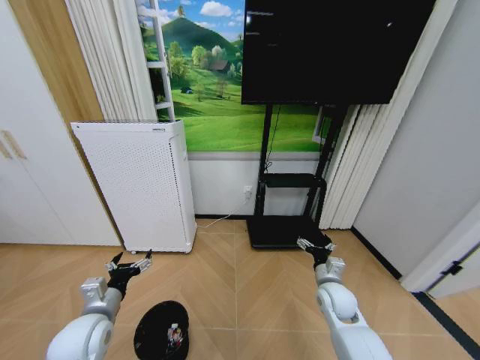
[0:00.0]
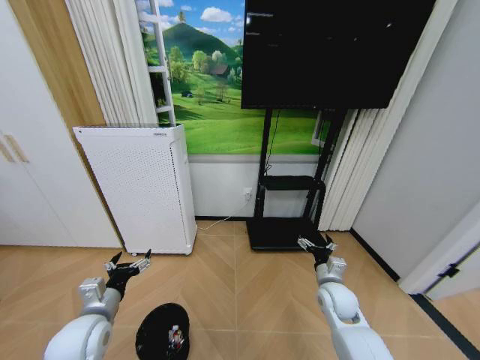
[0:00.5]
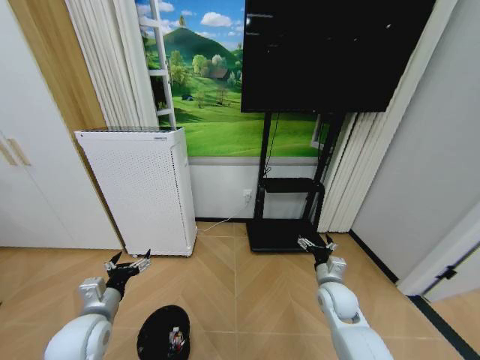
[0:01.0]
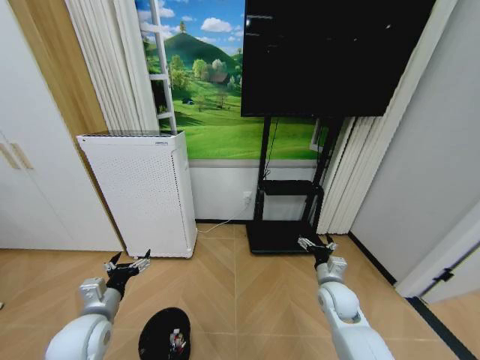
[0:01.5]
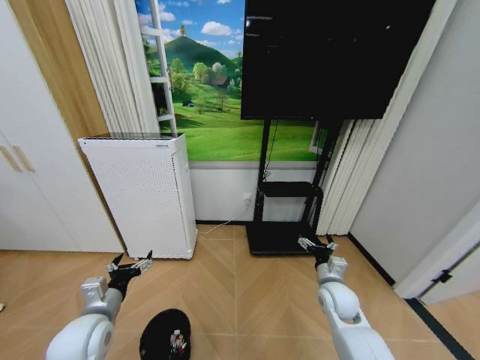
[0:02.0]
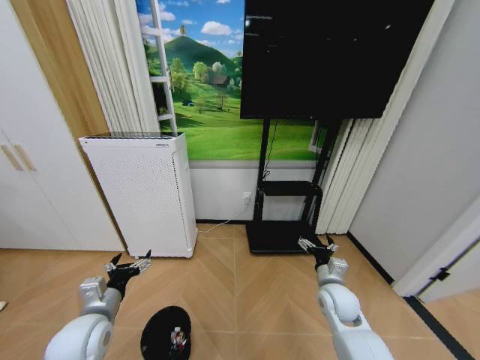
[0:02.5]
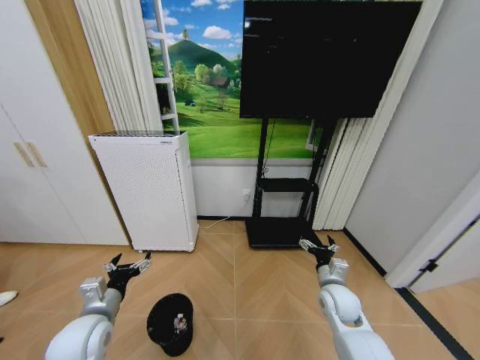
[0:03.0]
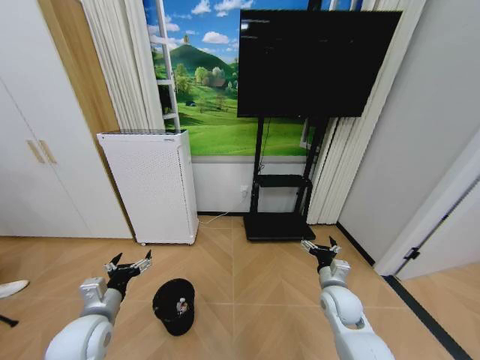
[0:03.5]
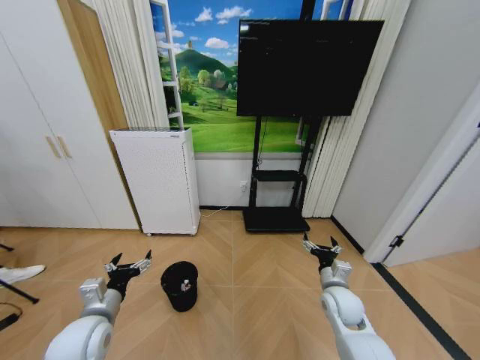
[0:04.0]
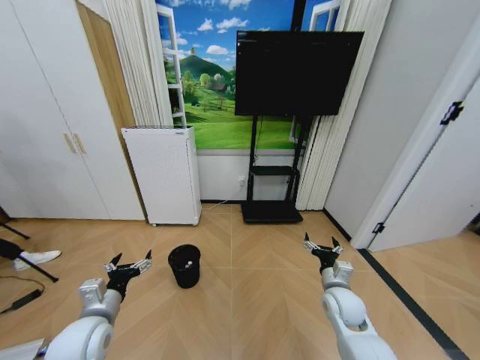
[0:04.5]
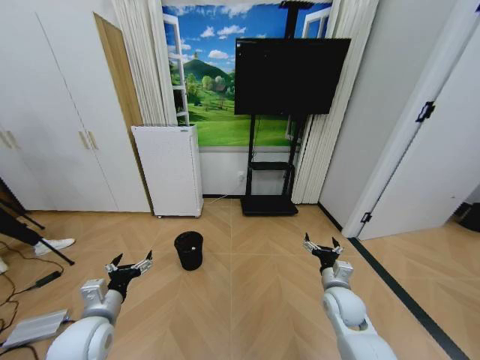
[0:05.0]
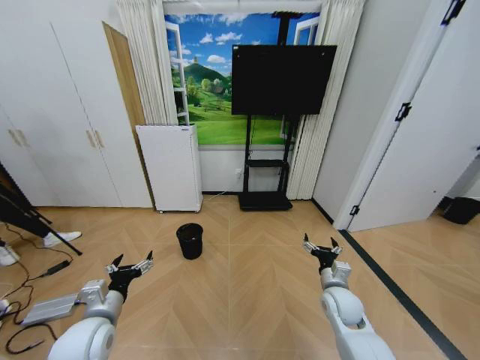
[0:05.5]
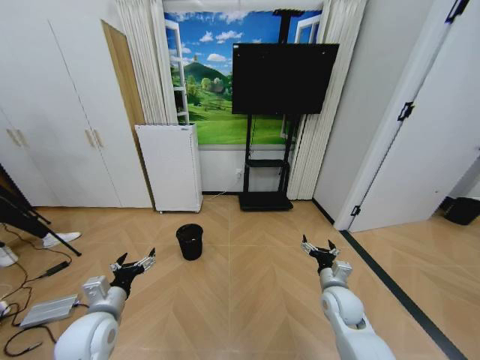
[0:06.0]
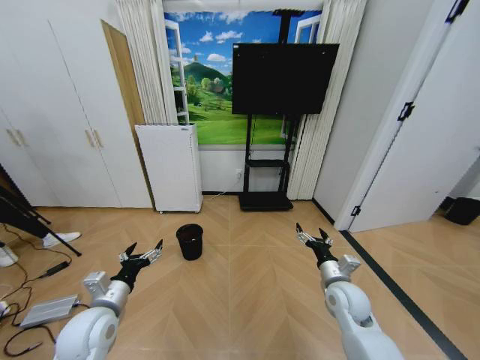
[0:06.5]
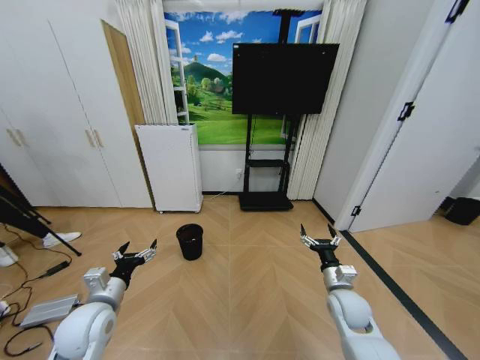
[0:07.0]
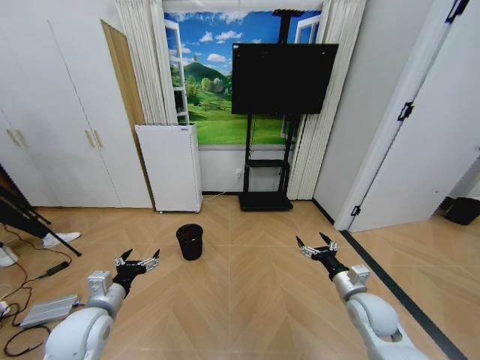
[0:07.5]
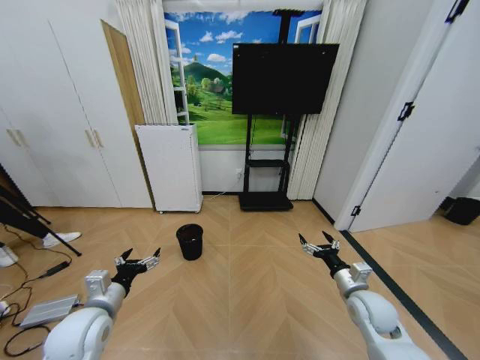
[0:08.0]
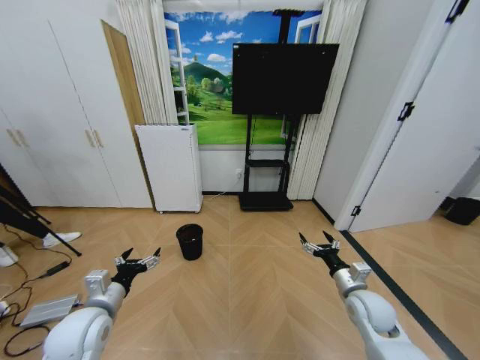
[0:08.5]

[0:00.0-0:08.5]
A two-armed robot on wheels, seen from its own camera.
Task of the whole recording: Pick up the trash bin and place the garbage on the floor into it.
0:00.0 to 0:02.0: Neither gripper changes place.
0:06.5 to 0:08.5: The right gripper changes place by roughly 5 cm.

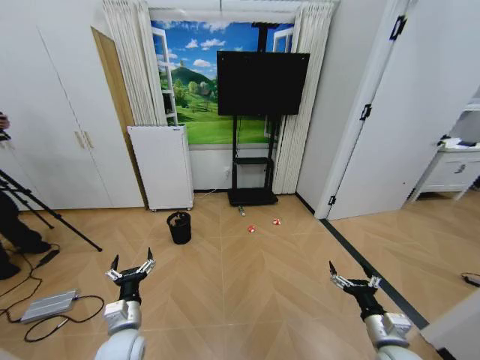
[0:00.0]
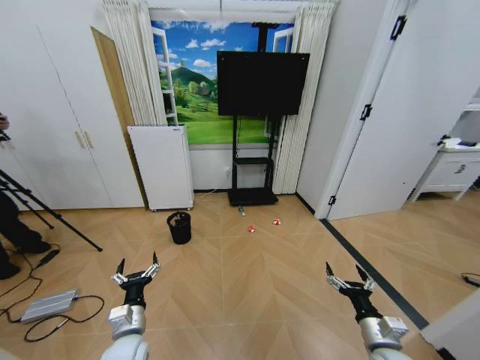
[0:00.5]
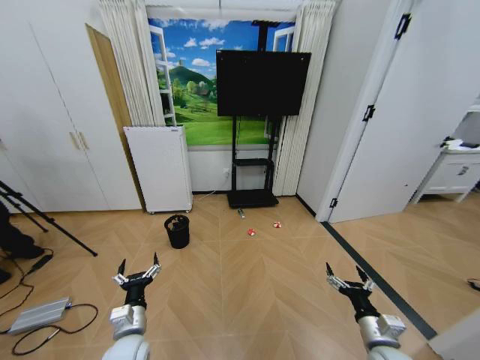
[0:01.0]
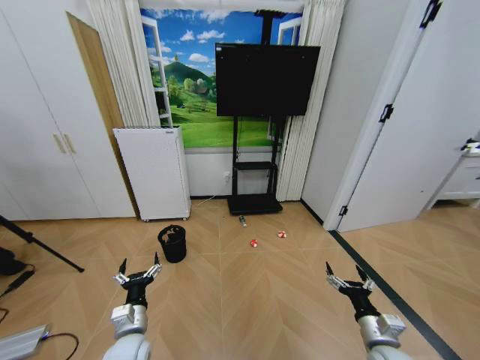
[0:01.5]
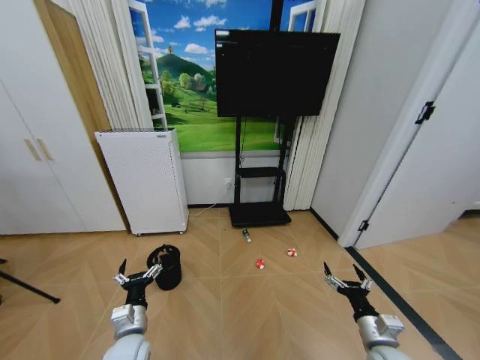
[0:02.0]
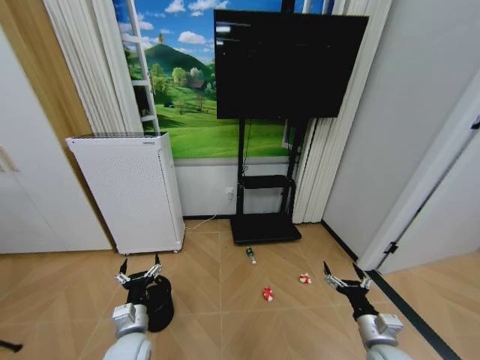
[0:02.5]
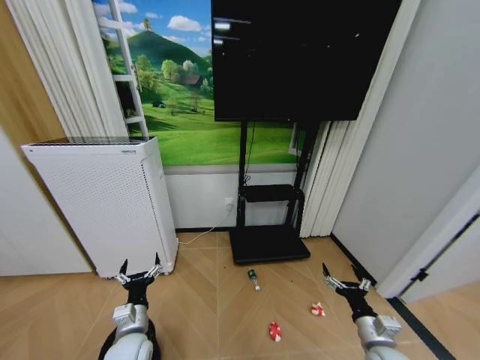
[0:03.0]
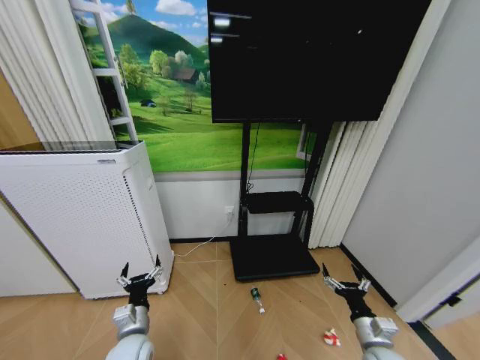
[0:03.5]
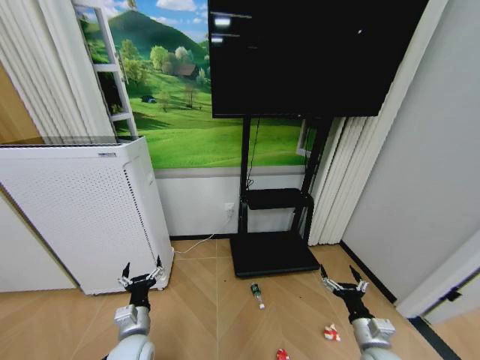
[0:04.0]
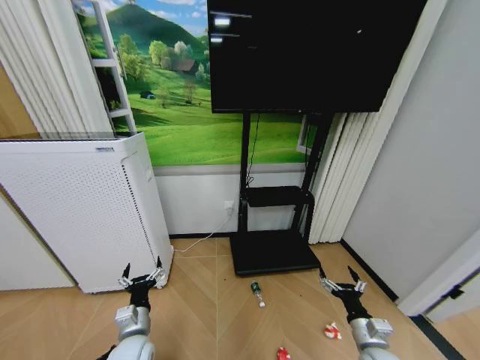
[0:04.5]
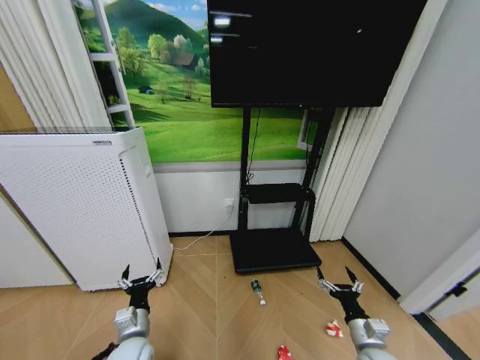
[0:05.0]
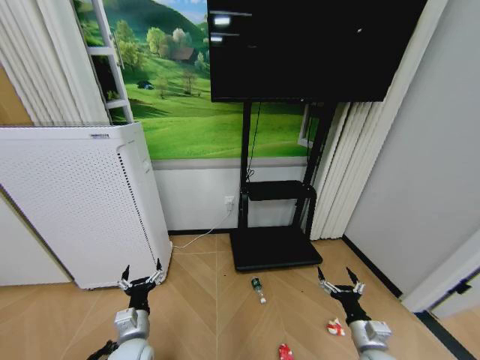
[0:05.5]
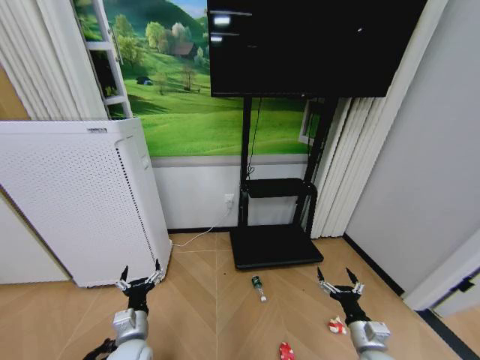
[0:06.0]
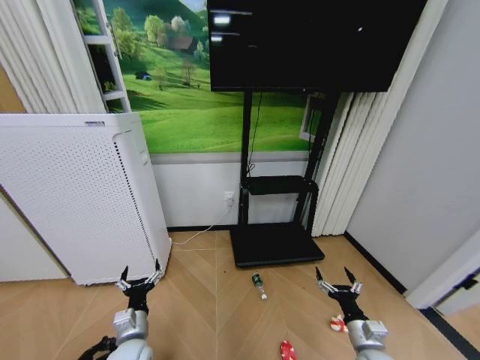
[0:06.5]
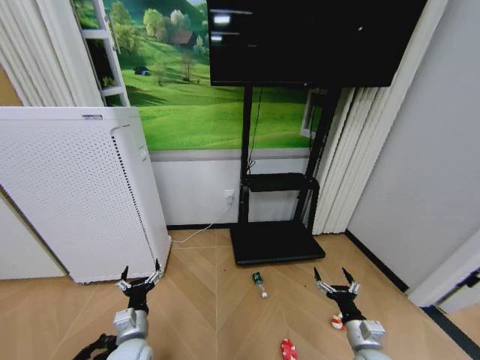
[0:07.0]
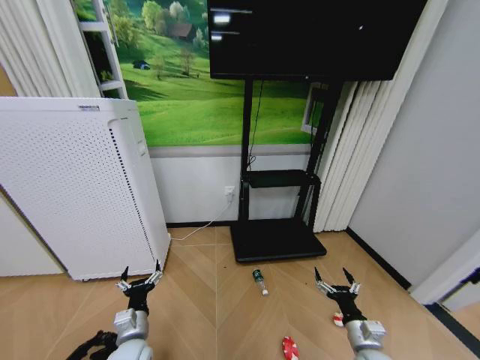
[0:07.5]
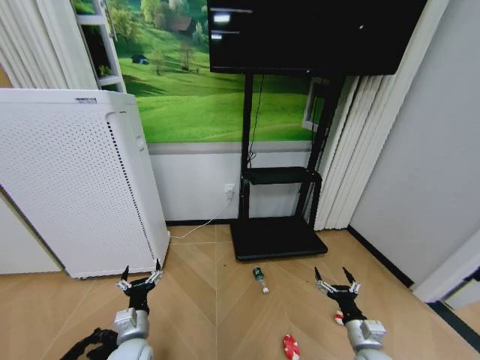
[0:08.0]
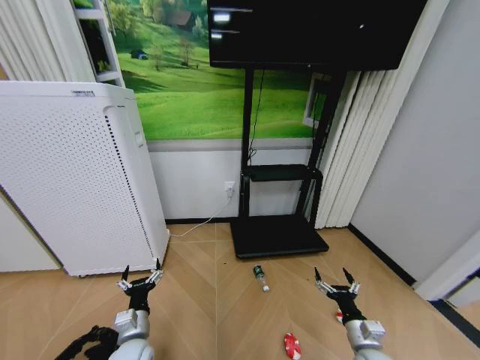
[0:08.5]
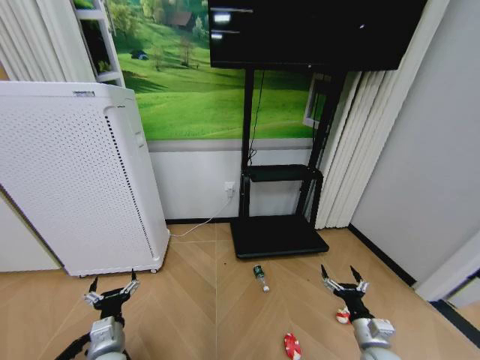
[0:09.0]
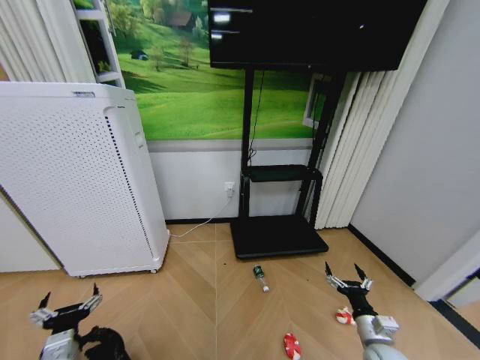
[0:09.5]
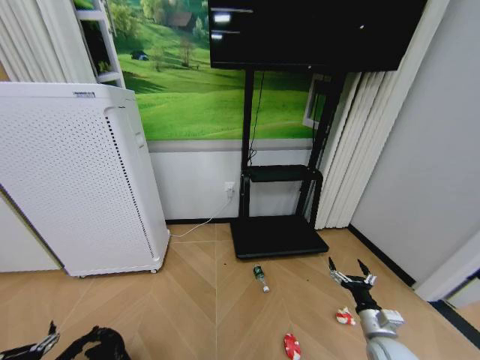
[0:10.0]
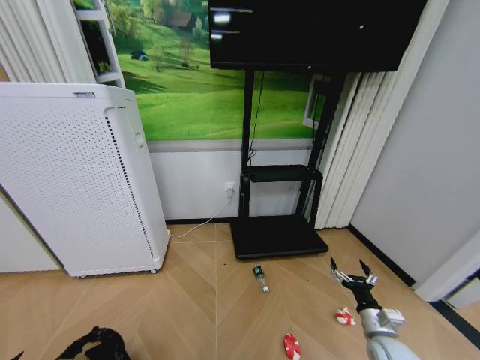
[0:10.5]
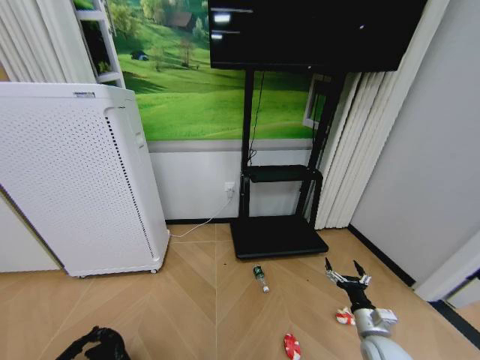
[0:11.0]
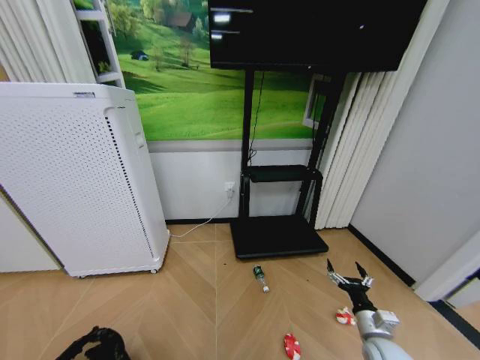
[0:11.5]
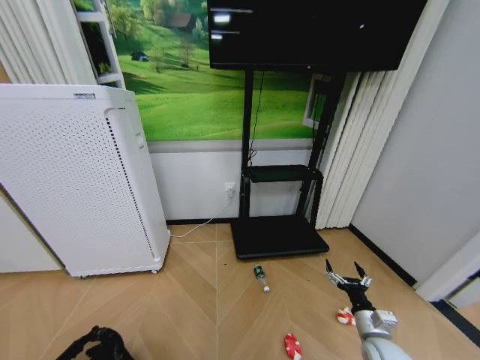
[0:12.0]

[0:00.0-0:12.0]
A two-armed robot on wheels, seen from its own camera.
Task of the whole recording: Pick up the trash bin and place the garbage on the floor into it.
0:08.0 to 0:10.0: The left gripper moves to the left and backward, some 20 cm.
0:10.0 to 0:12.0: The left gripper is displaced downward by some 10 cm.

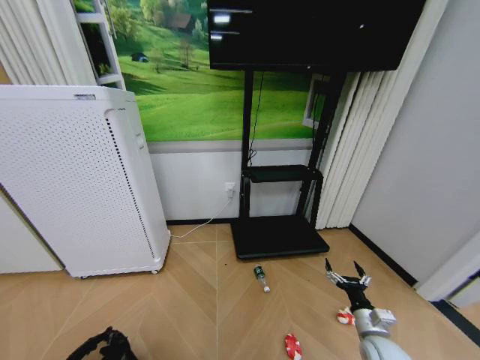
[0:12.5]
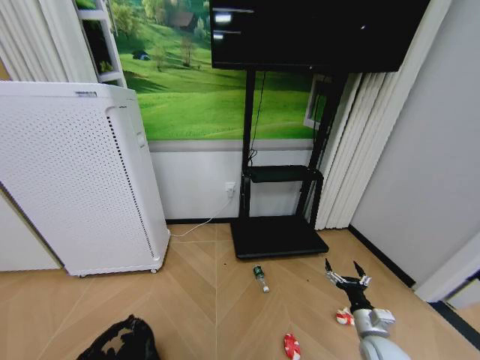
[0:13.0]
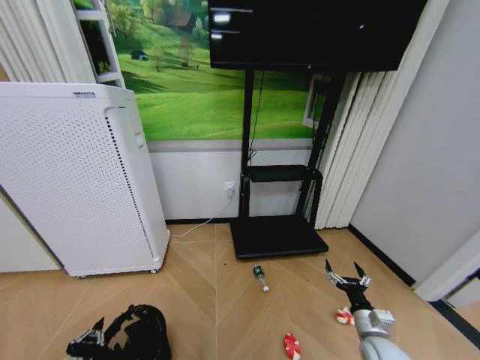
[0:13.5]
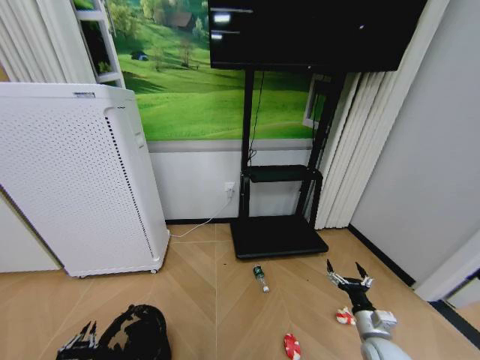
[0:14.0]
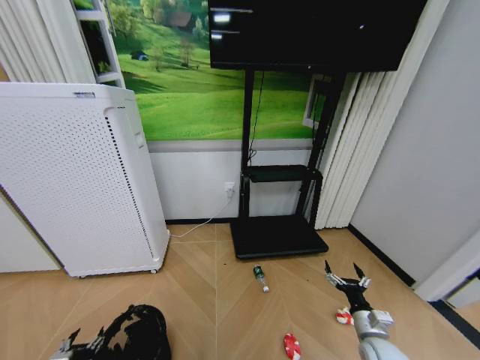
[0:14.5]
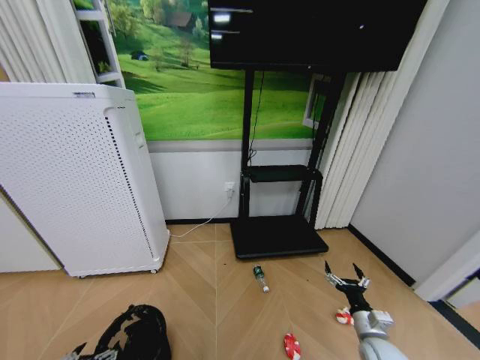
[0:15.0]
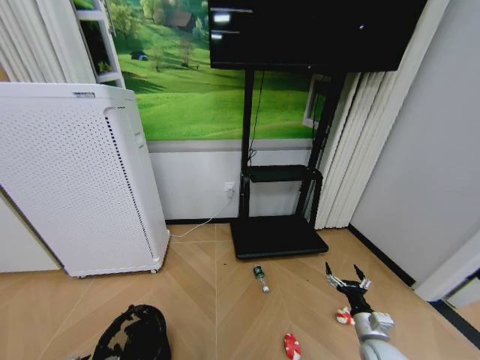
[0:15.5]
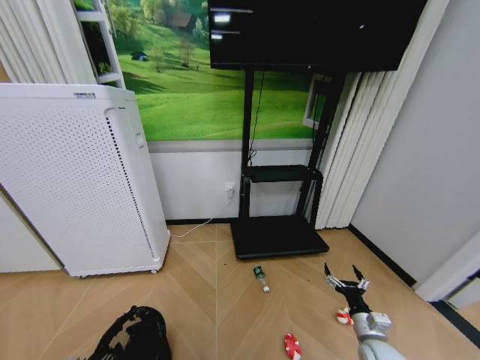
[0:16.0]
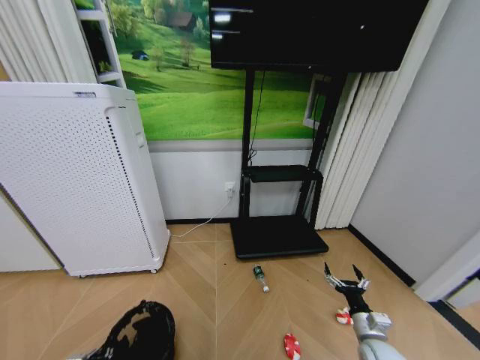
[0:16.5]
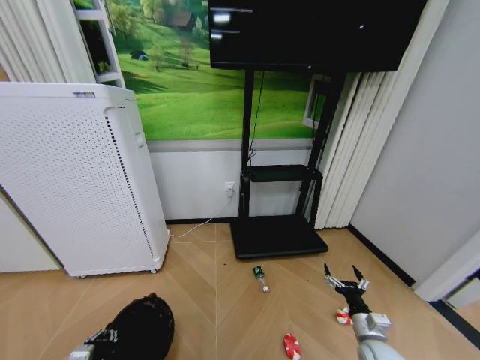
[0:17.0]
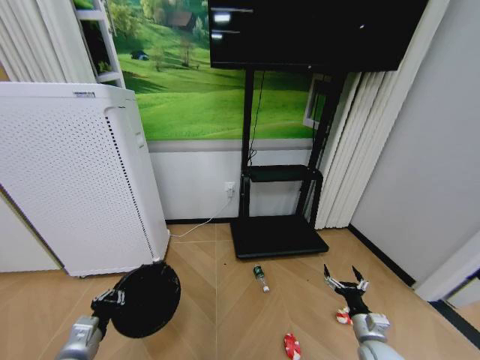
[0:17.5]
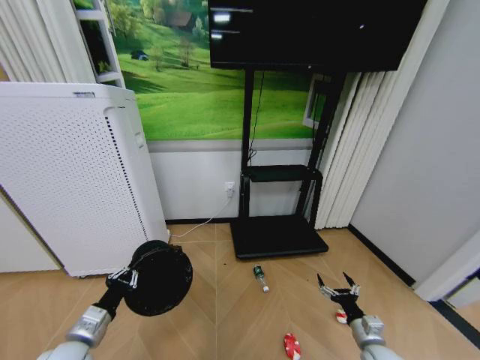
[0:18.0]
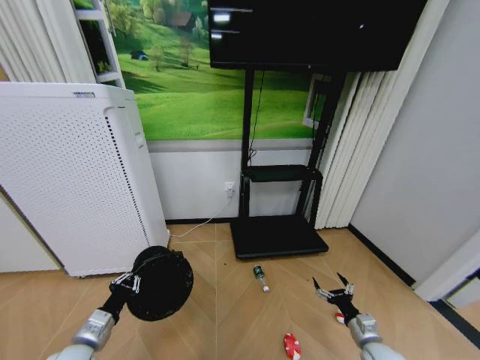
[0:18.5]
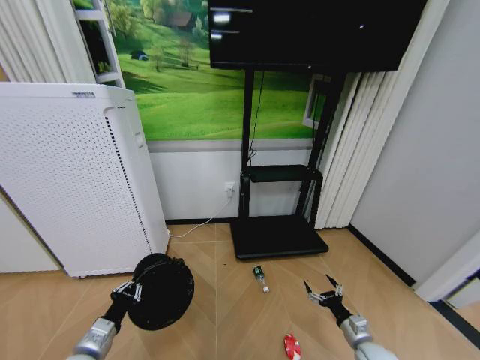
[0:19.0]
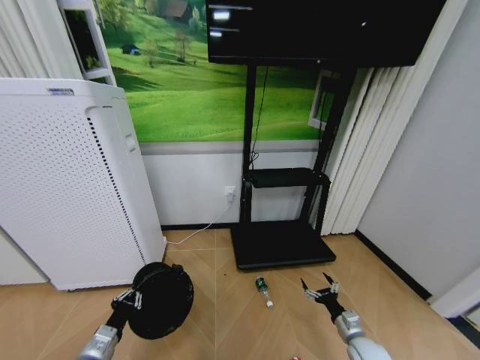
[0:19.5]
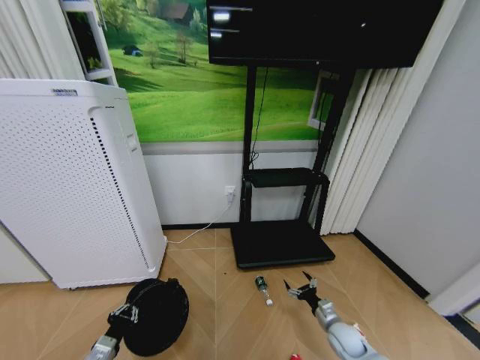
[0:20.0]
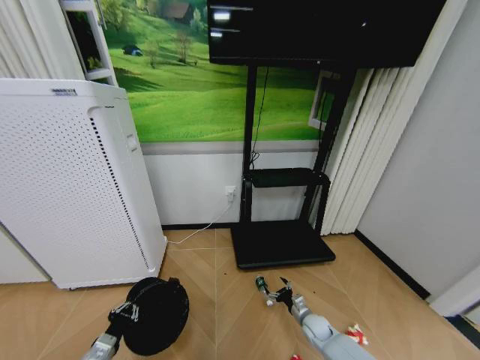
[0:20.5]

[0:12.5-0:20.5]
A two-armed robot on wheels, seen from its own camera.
Task of the whole recording: Pick up the trash bin and place the garbage on the floor into it.
0:12.5 to 0:14.5: The left gripper travels upward, forward and to the right by roughly 10 cm, and closes, then opens again.
0:14.5 to 0:16.5: The left gripper closes its fingers.
0:16.5 to 0:18.5: The left gripper travels forward and upward by approximately 10 cm.
0:18.5 to 0:20.5: The left gripper shifts roughly 5 cm downward, while the right gripper heads forward, to the left and downward, covering about 20 cm.
